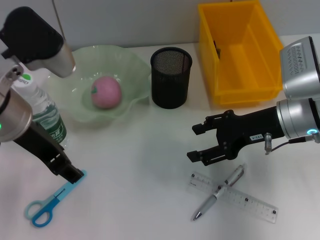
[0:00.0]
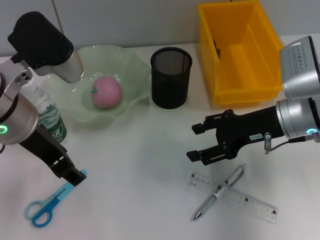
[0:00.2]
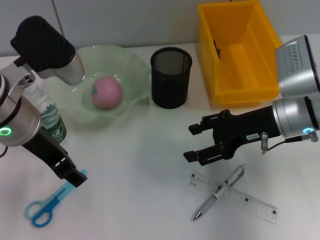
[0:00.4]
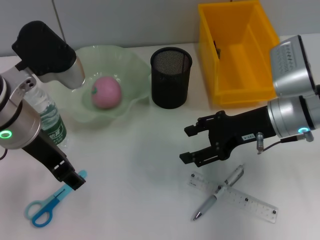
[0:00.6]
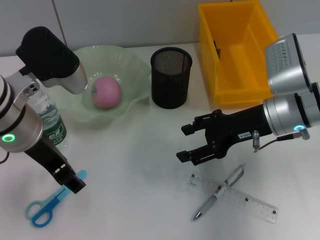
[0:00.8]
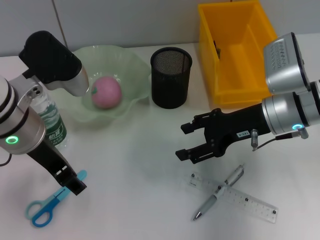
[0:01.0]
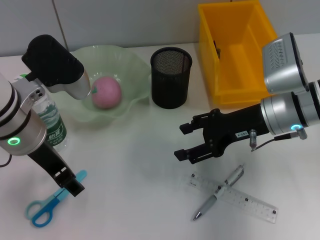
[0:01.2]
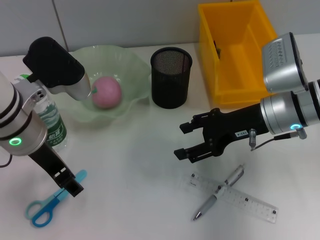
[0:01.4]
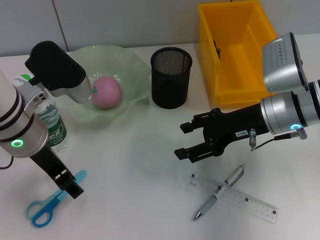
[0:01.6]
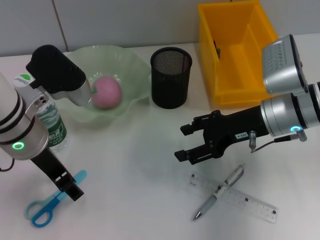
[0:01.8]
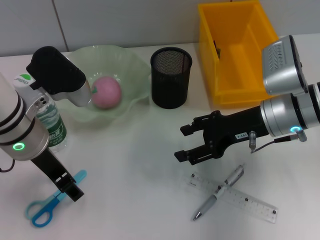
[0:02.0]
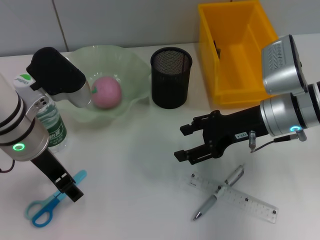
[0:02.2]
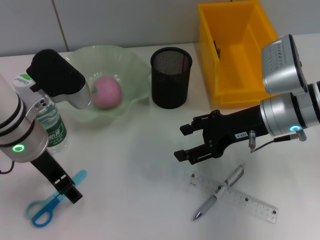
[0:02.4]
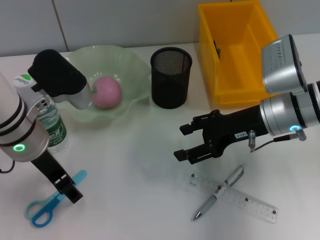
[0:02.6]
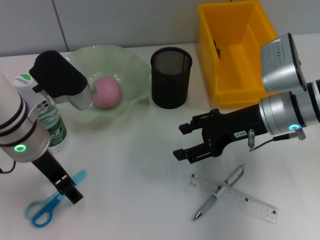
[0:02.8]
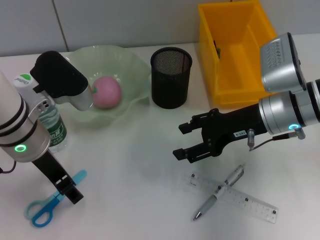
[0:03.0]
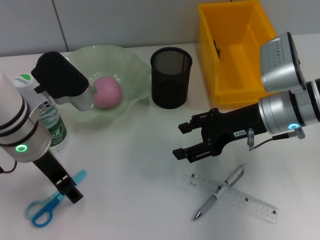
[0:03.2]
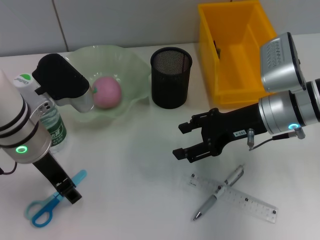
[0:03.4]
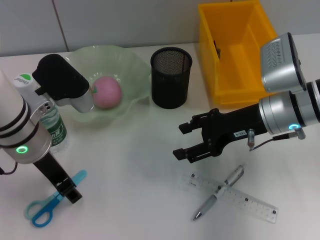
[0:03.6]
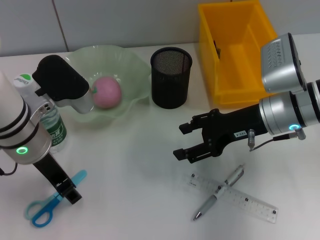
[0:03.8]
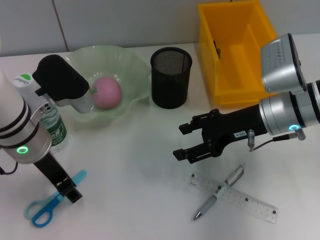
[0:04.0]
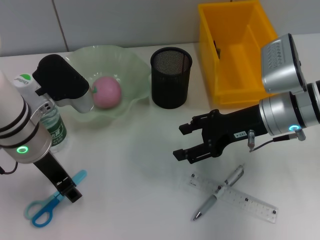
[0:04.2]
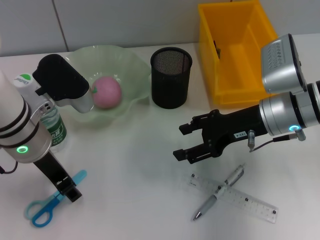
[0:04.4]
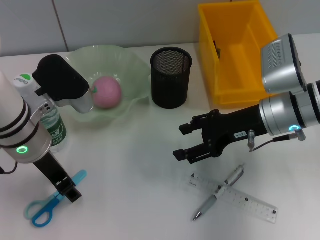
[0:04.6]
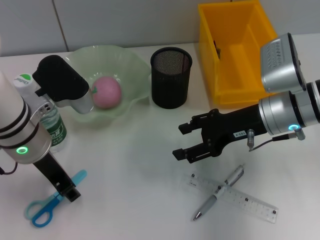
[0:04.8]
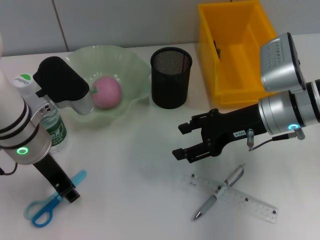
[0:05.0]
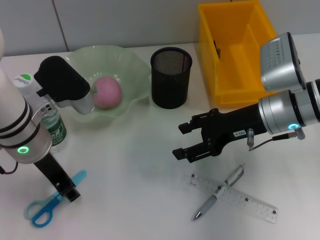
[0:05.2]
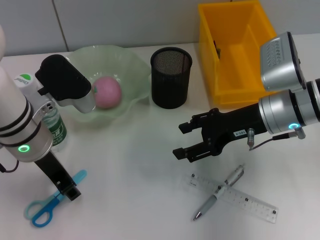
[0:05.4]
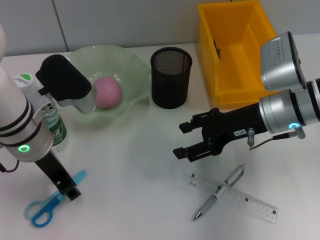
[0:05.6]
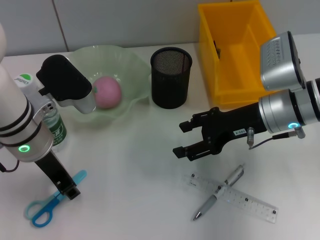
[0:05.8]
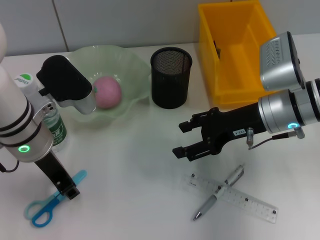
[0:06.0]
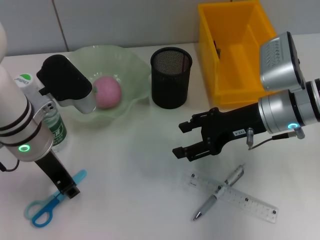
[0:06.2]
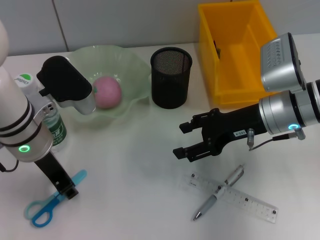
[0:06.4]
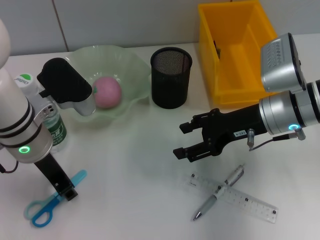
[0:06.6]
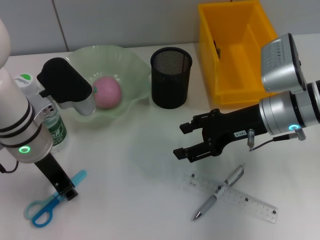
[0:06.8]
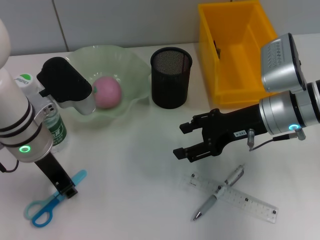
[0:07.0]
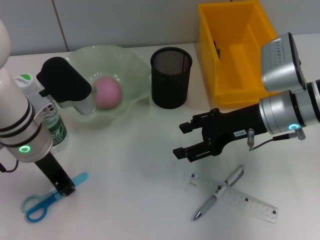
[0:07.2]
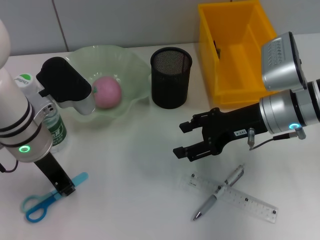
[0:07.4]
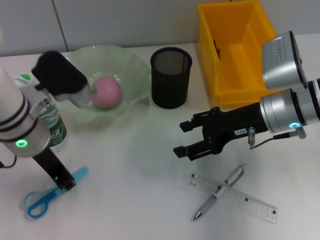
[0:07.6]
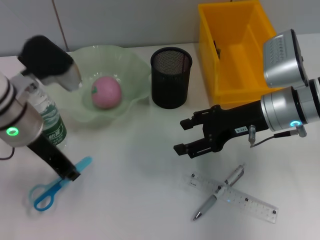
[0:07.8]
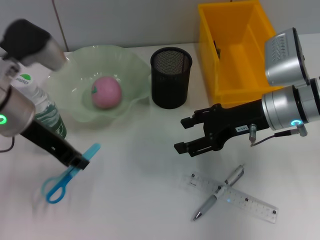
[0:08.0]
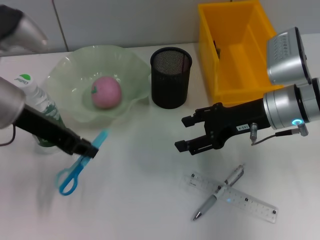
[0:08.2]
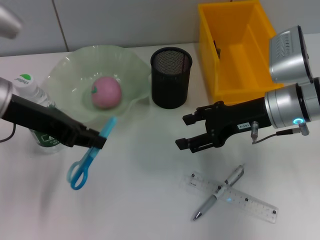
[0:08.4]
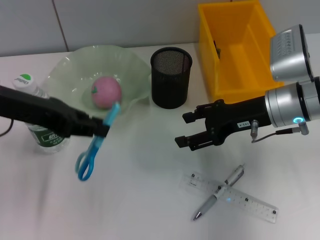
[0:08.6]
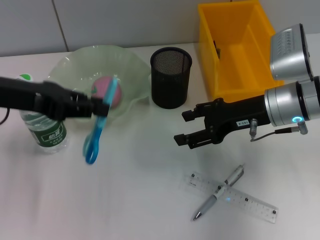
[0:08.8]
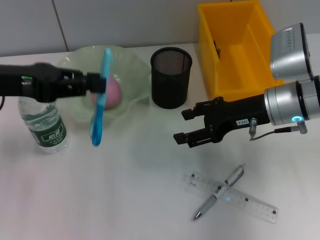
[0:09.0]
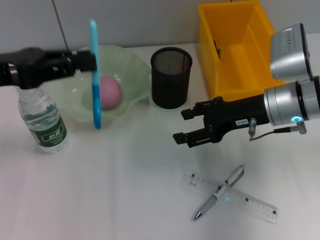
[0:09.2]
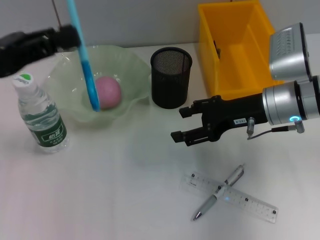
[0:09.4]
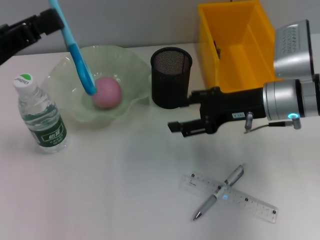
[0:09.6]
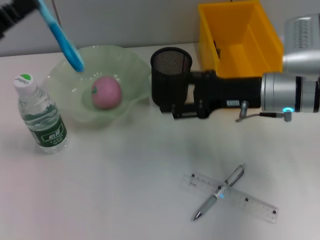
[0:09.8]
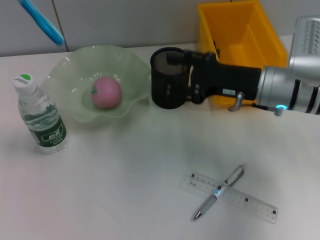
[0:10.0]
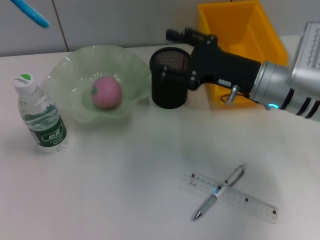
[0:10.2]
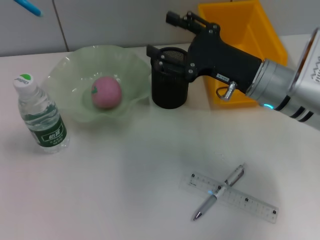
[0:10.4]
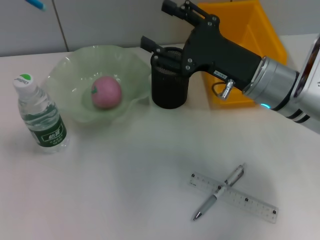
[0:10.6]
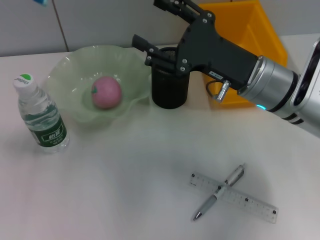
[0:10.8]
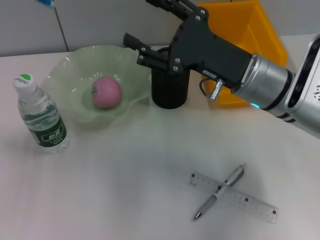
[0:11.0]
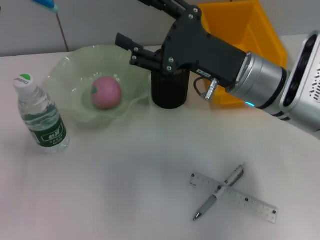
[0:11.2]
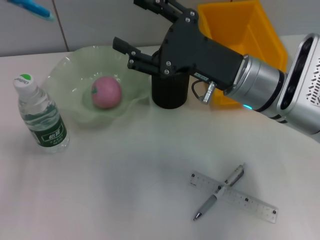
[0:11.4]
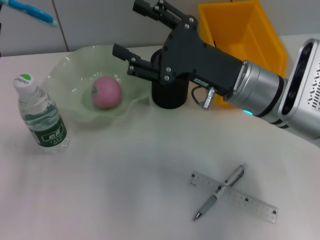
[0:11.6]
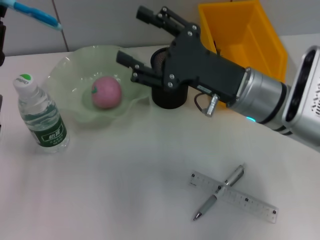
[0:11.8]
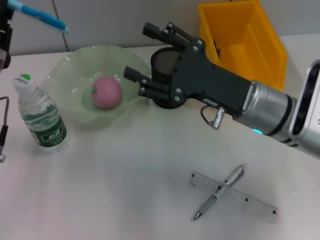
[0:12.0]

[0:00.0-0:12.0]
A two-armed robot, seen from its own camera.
Step, 0:00.0 to 0:07.2: Grab the blue scissors with the left hand.
0:01.6 to 0:03.0: The grippers stay close to where they were, moving slightly.
0:03.0 to 0:06.0: Both grippers stay put.
0:06.0 to 0:07.6: The left gripper closes its fingers.
0:07.6 to 0:09.0: The left gripper shifts approximately 10 cm to the left and upward.
0:09.0 to 0:10.4: The left gripper travels downward by some 10 cm.
0:10.4 to 0:12.0: The left gripper moves approximately 5 cm.

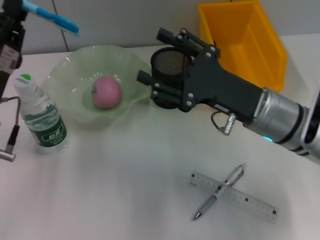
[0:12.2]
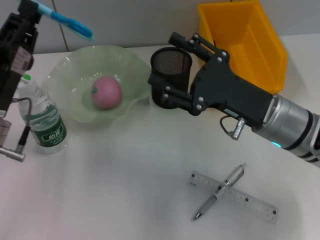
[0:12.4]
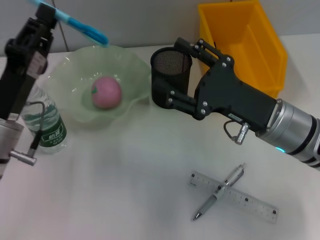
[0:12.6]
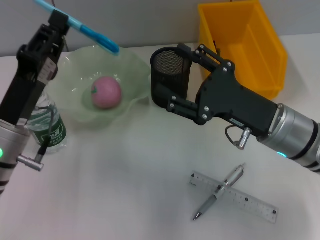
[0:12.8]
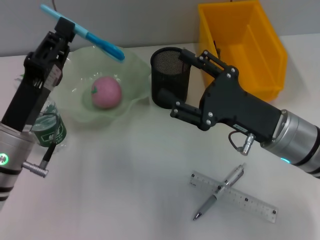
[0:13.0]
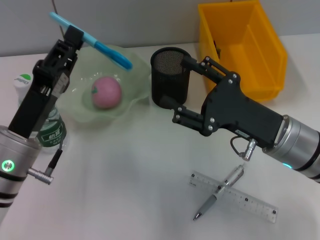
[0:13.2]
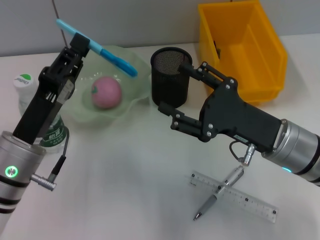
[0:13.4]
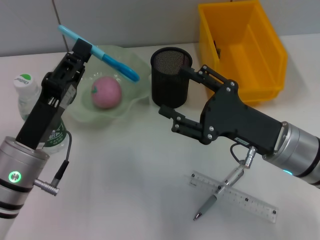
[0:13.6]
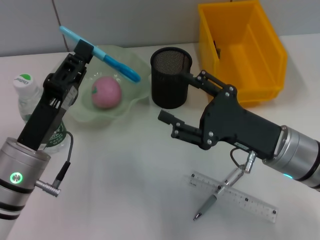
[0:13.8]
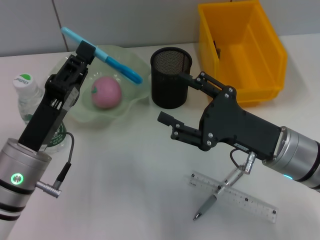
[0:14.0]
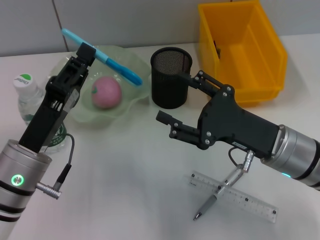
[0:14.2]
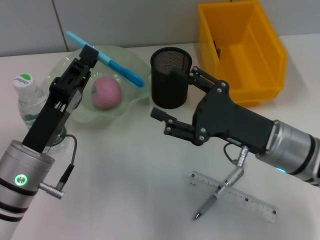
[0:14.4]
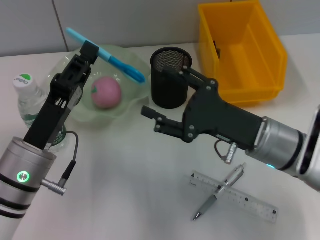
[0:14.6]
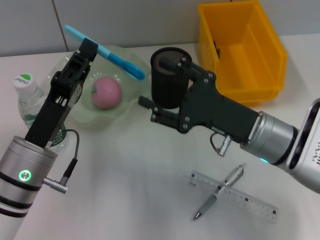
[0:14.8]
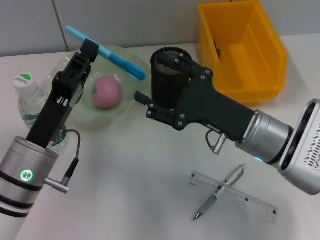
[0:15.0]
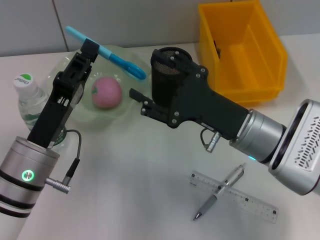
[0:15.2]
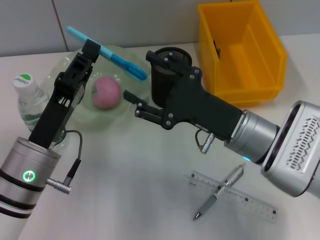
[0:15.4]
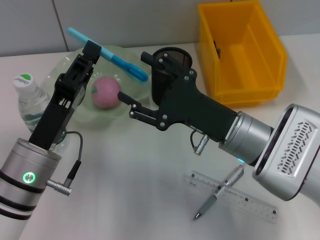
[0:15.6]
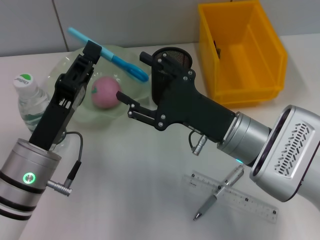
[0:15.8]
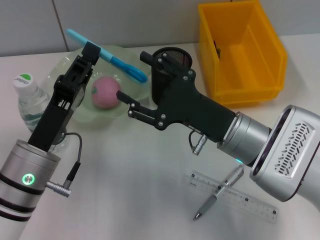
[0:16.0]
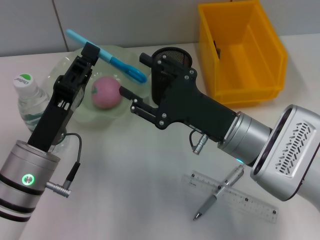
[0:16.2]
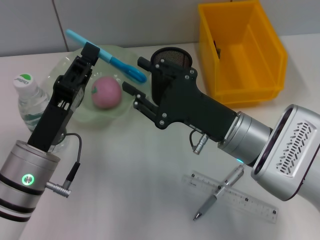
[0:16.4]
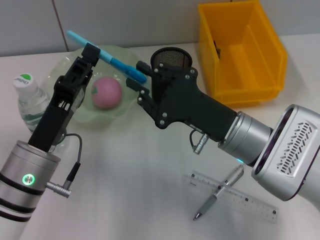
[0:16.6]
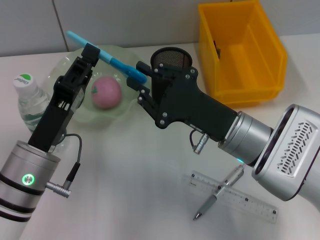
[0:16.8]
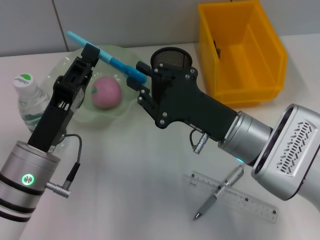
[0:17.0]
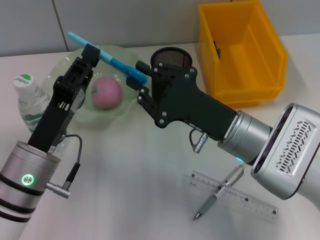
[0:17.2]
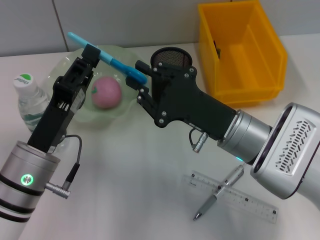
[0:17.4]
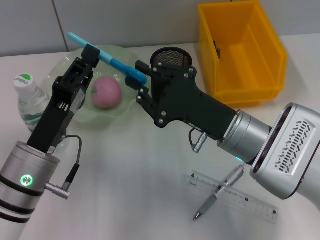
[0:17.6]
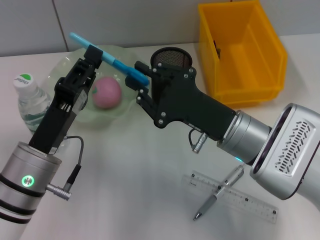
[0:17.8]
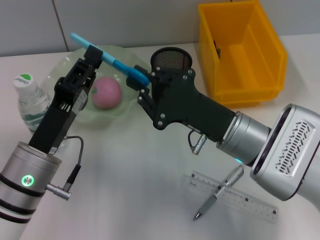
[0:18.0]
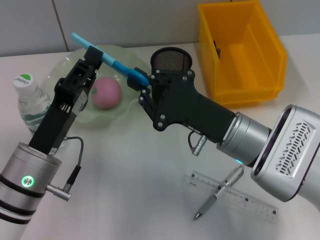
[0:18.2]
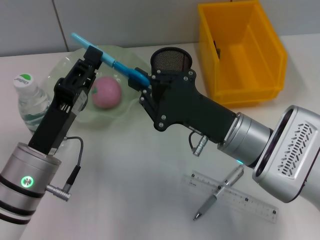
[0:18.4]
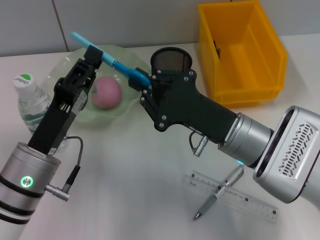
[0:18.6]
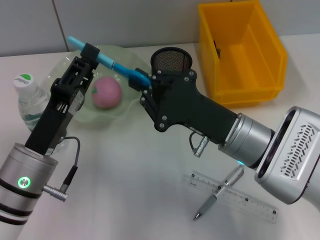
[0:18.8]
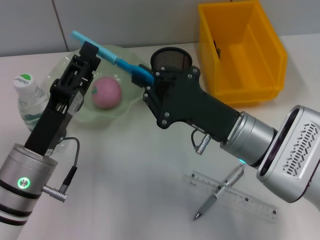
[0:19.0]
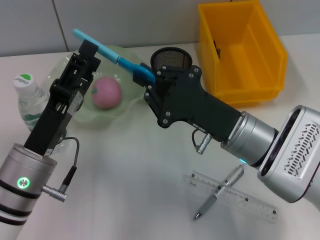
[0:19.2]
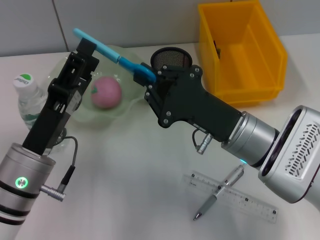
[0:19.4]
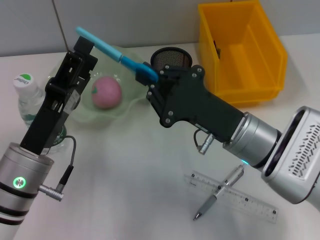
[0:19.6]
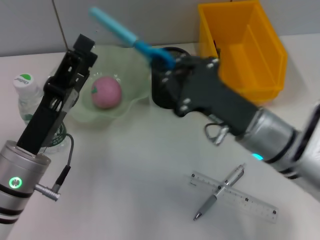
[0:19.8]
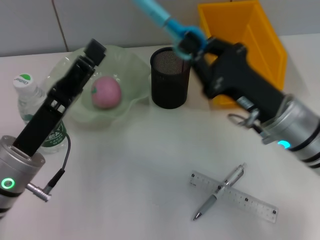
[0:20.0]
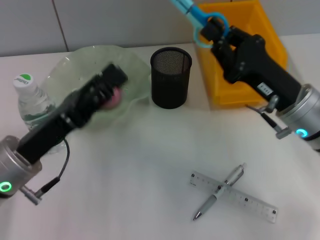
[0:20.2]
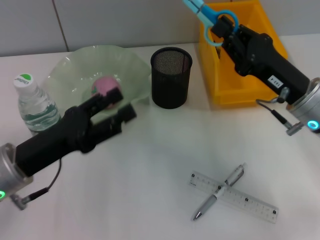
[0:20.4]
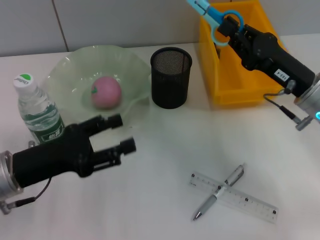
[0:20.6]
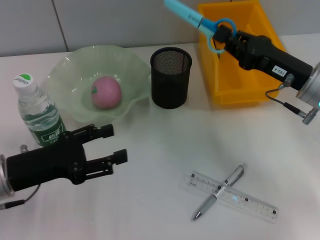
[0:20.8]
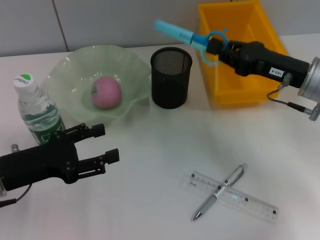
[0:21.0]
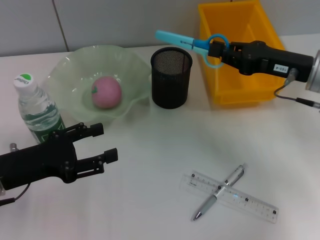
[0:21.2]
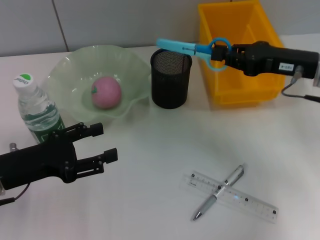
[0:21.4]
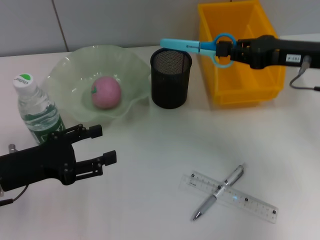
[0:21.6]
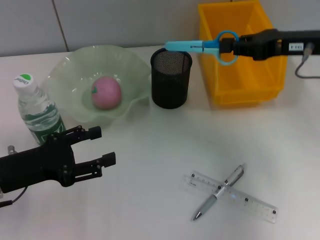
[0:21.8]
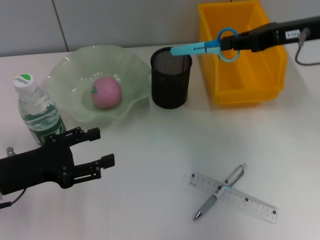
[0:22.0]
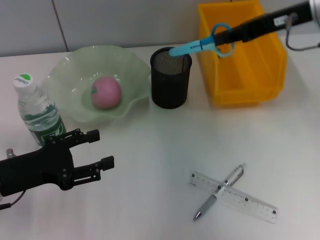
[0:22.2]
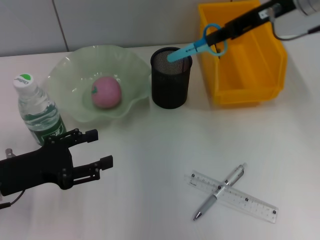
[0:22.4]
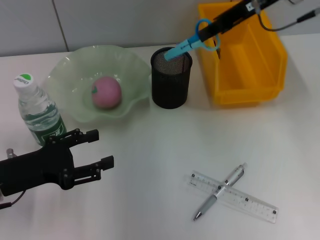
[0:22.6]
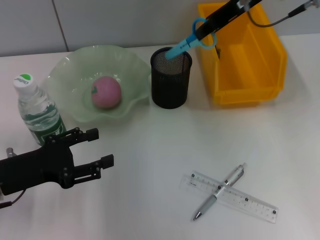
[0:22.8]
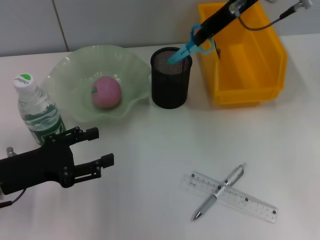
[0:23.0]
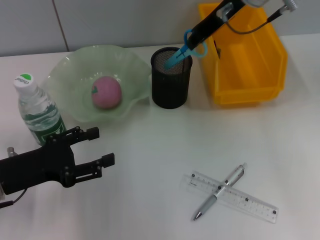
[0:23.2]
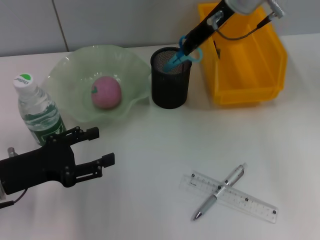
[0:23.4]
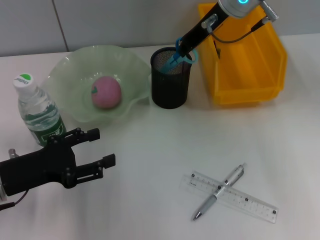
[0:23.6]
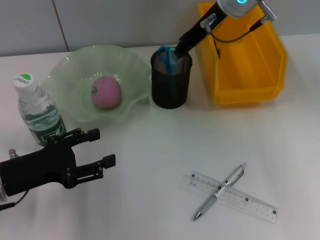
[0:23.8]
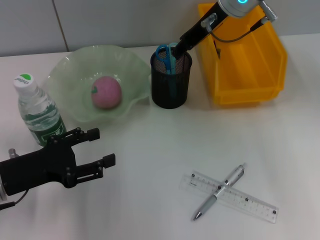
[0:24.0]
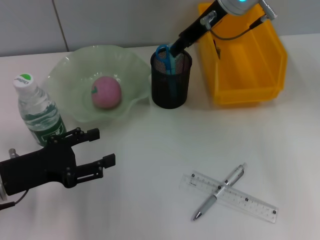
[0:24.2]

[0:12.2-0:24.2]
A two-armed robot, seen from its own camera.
Step, 0:12.2 to 0:19.0: Pass the blue scissors from the left hand to the right hand.
Step, 0:19.4 to 0:24.0: Place the blue scissors into the pen holder with the right hand.
0:12.2 to 0:13.8: The right gripper changes place by roughly 5 cm. Meanwhile the left gripper changes place by some 5 cm.
0:15.2 to 0:16.6: The right gripper closes its fingers.
0:16.6 to 0:18.2: The right gripper closes its fingers.
0:18.2 to 0:19.8: The left gripper opens its fingers.
0:19.8 to 0:21.2: The right gripper travels to the right, forward and upward by approximately 15 cm, while the left gripper heads to the left, covering some 10 cm.
0:21.2 to 0:22.6: The right gripper heads upward, forward and to the left, covering roughly 15 cm.
0:22.6 to 0:24.2: The right gripper heads to the left, covering some 5 cm, and opens its fingers.
